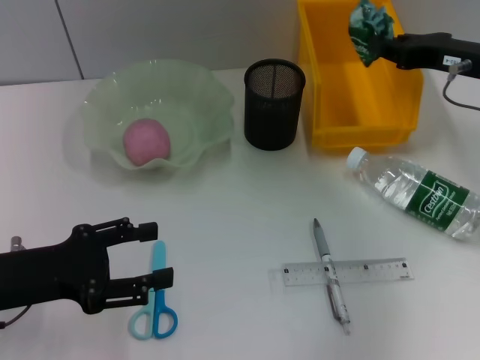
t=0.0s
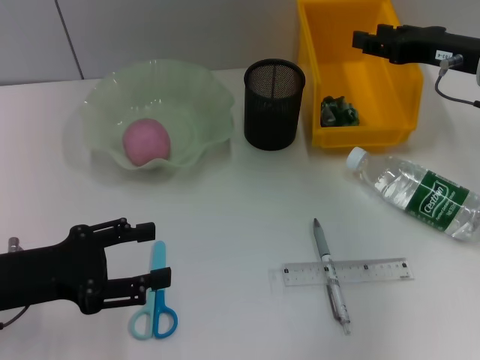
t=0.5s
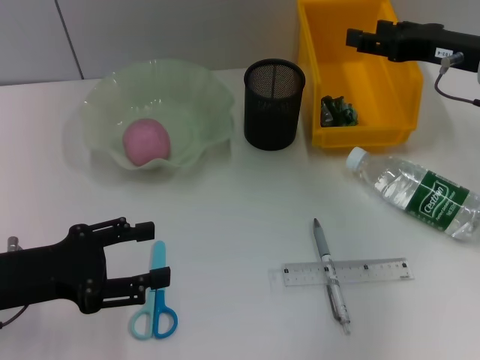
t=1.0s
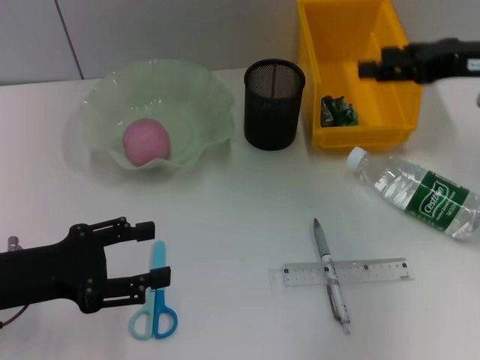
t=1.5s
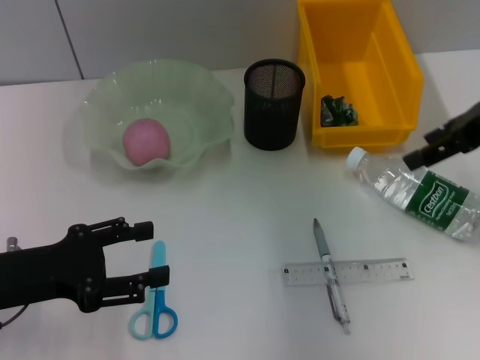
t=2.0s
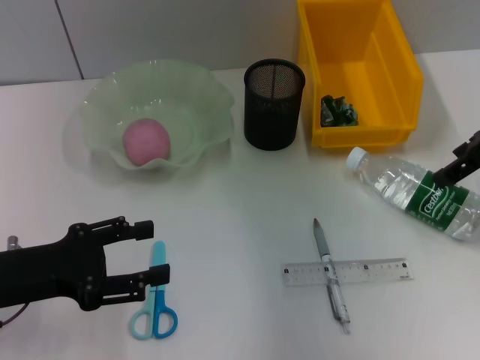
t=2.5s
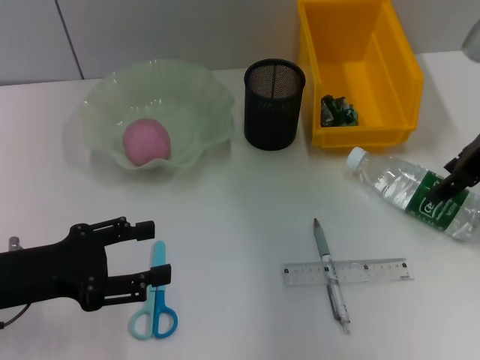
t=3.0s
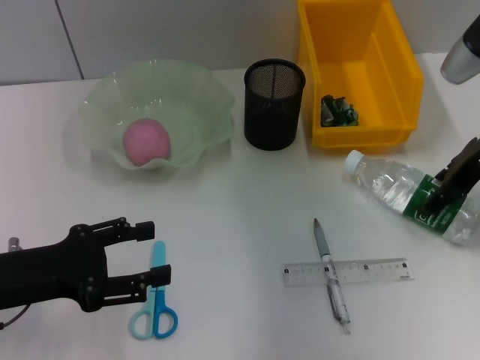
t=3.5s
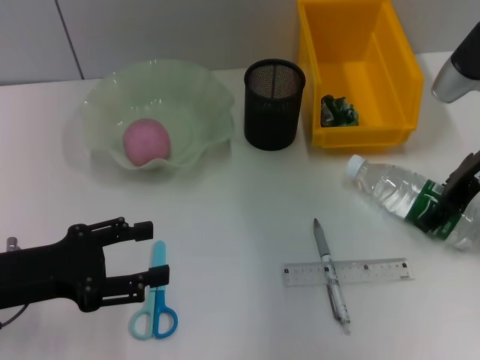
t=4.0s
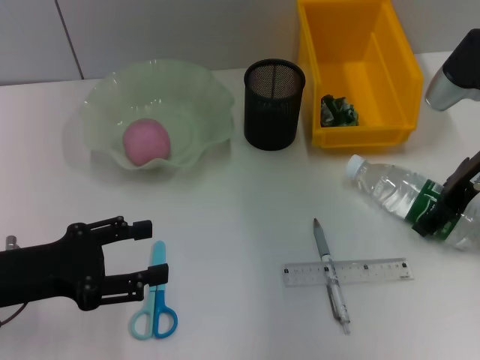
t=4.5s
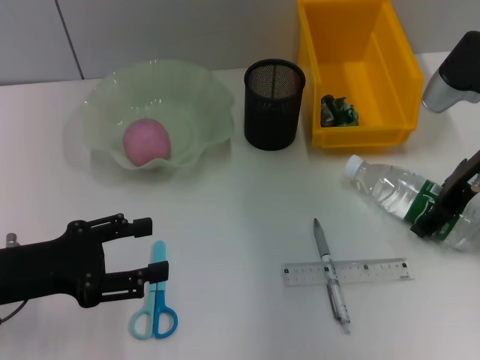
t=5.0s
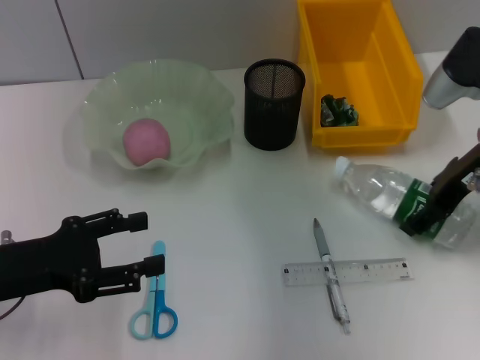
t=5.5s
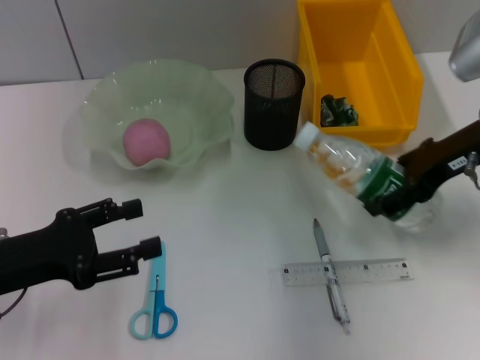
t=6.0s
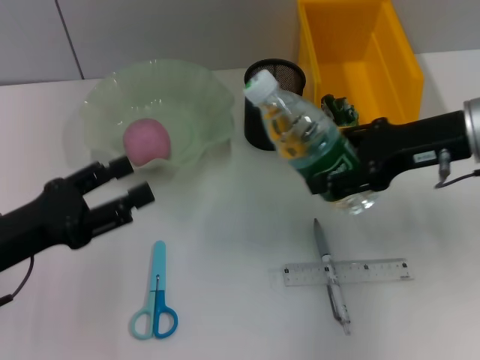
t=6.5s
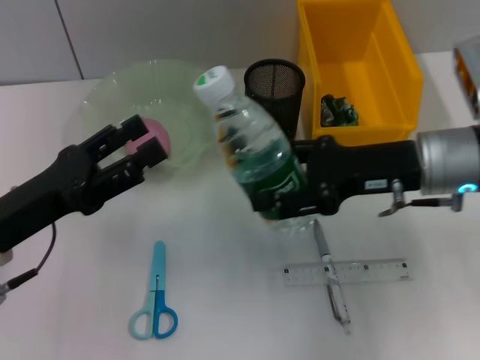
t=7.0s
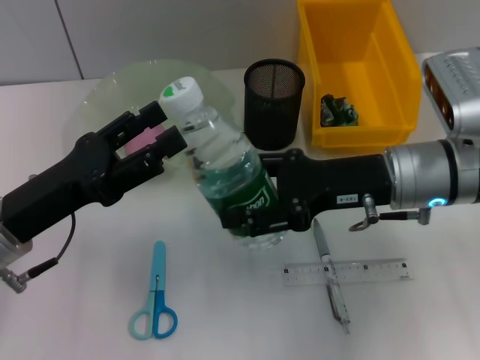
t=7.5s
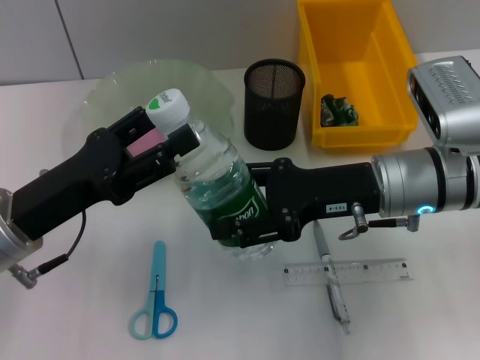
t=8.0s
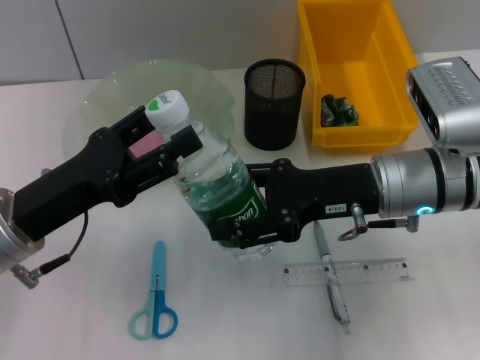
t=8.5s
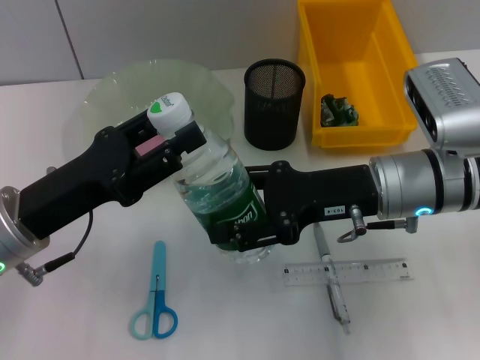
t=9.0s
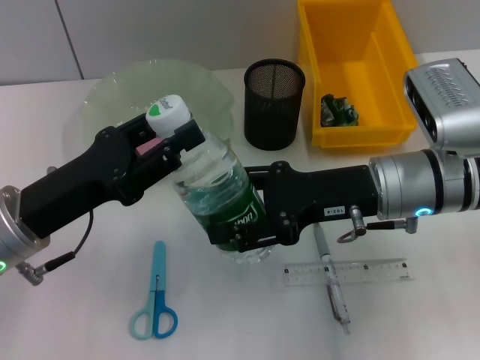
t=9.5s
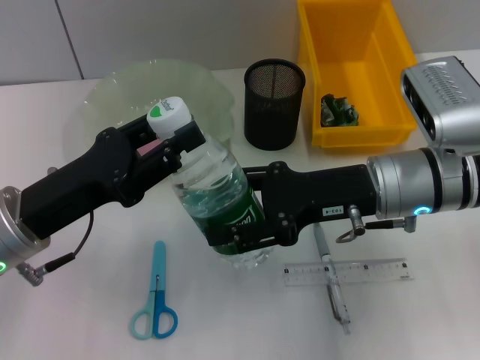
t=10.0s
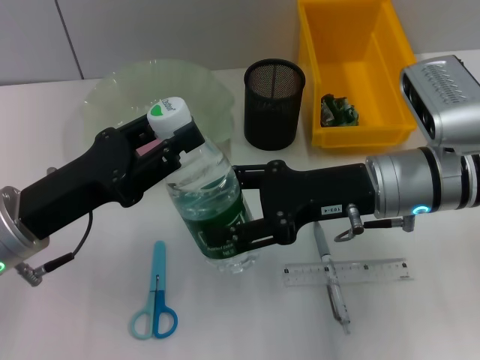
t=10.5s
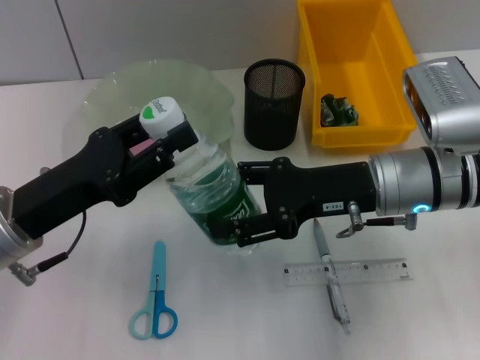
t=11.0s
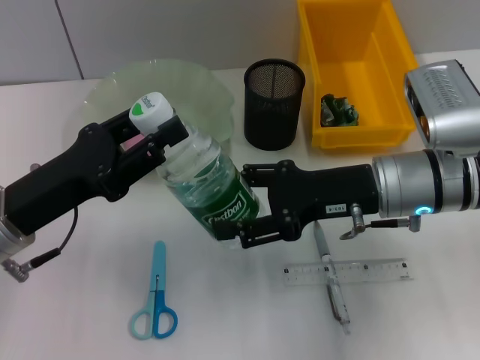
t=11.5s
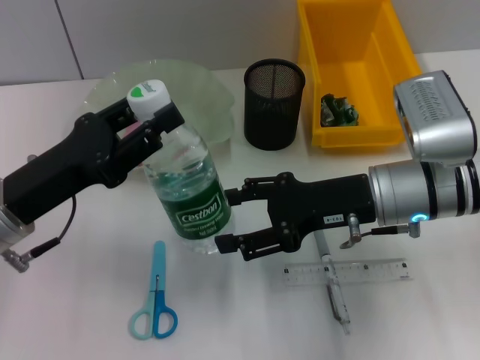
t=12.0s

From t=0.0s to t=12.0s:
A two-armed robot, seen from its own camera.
Step, from t=1.0s to t=5.0s: Grab the water bottle with the right hand.
From t=0.0s to t=2.0s: The right gripper moves upward, roughly 5 cm, and opens up.
From t=2.0s to t=4.0s: The right gripper shifts about 5 cm downward.
From t=6.0s to t=8.0s: The right gripper shifts about 10 cm to the left and downward. Meanwhile the left gripper shifts about 5 cm to the right.
From t=8.0s to t=10.0s: The left gripper closes.

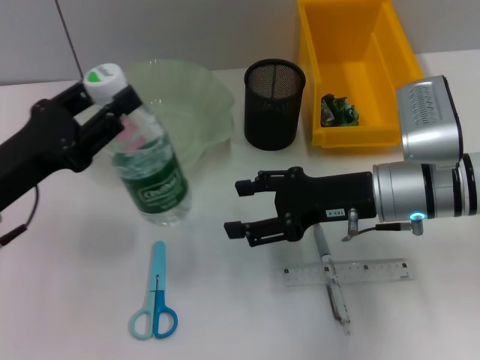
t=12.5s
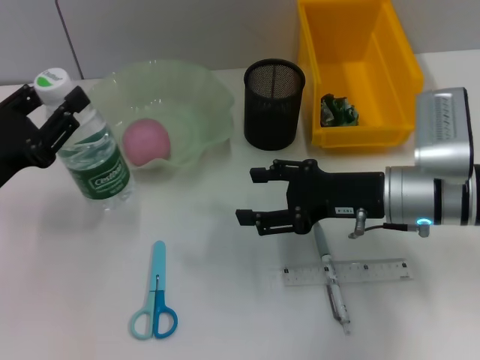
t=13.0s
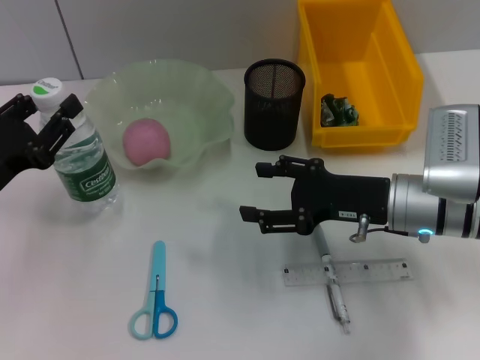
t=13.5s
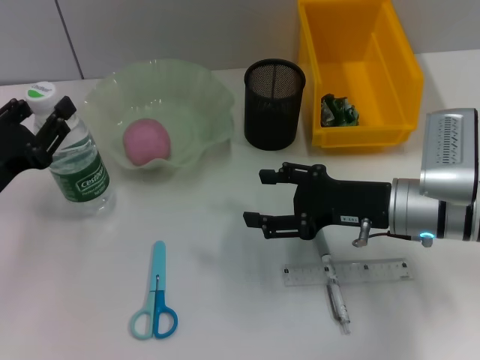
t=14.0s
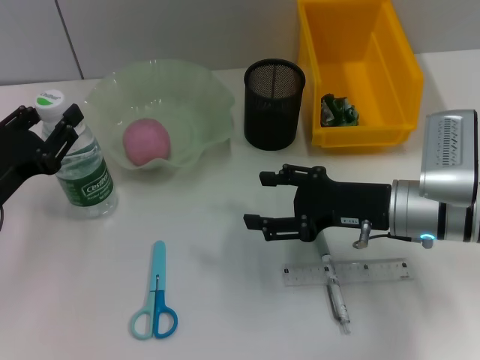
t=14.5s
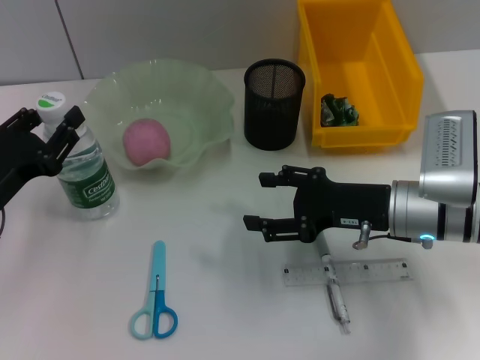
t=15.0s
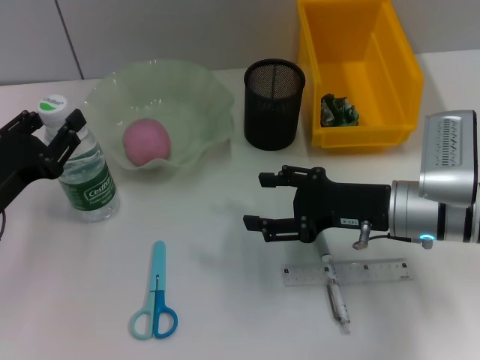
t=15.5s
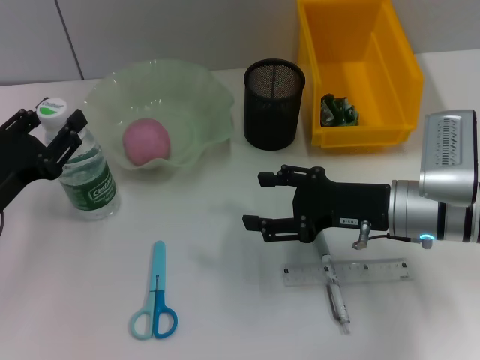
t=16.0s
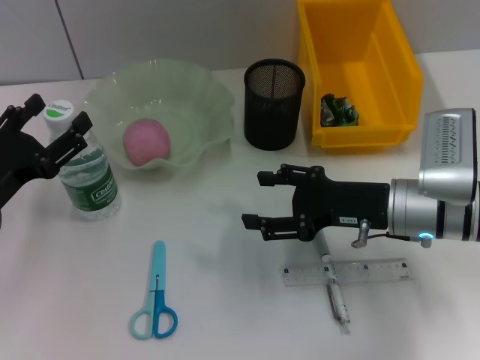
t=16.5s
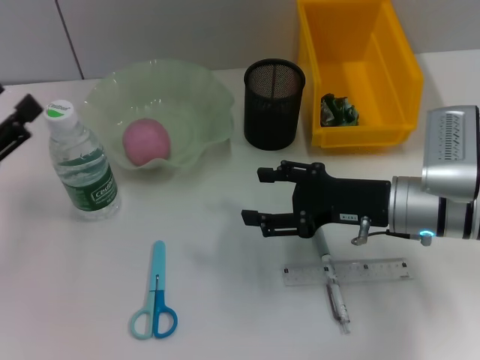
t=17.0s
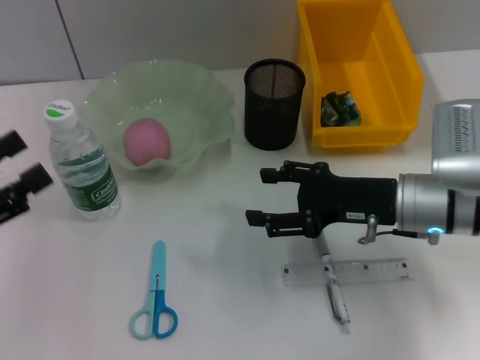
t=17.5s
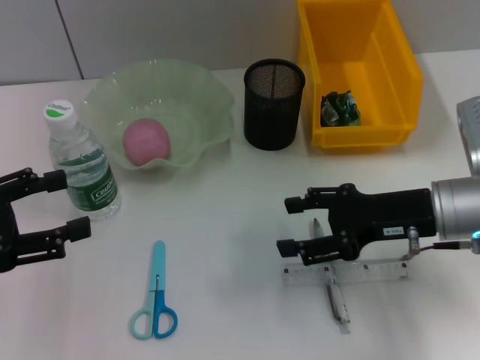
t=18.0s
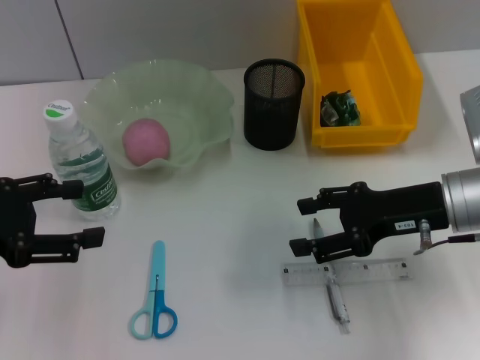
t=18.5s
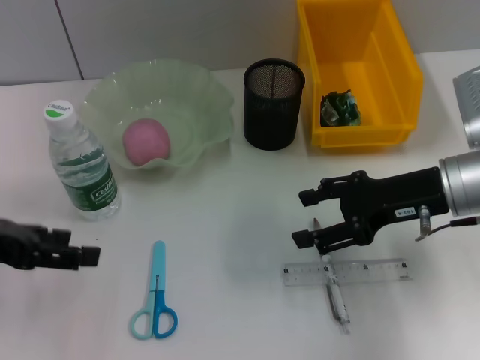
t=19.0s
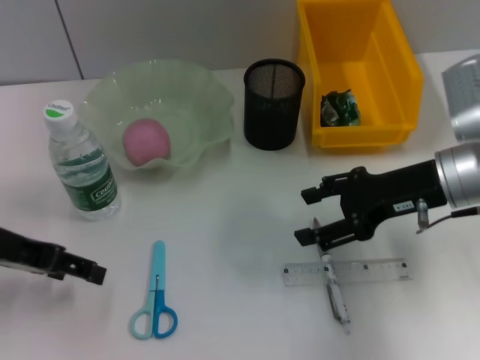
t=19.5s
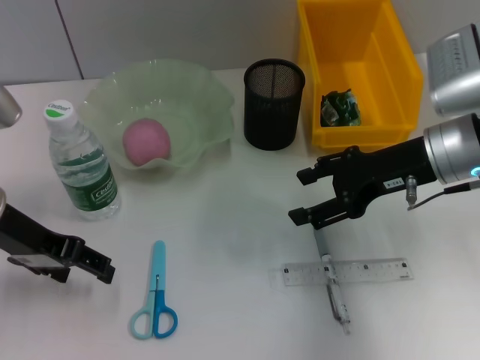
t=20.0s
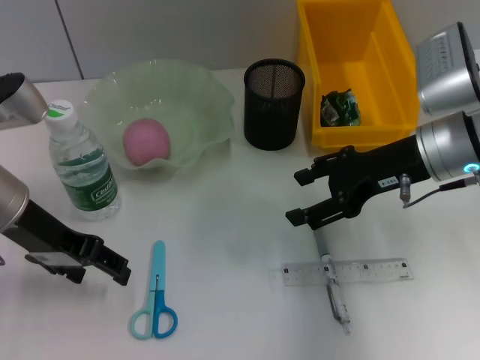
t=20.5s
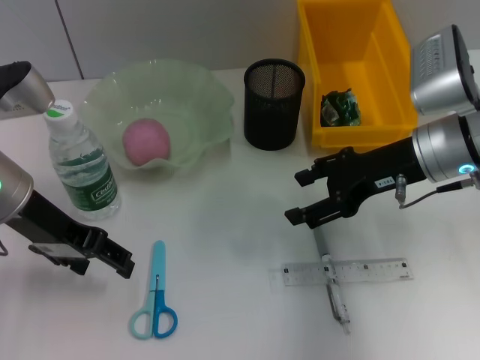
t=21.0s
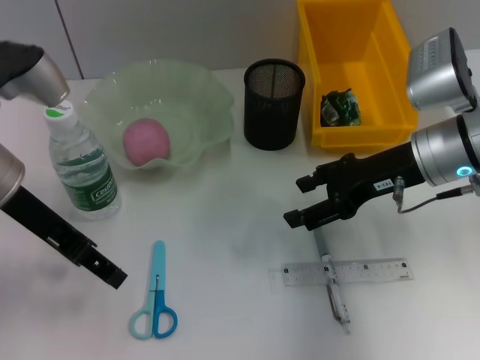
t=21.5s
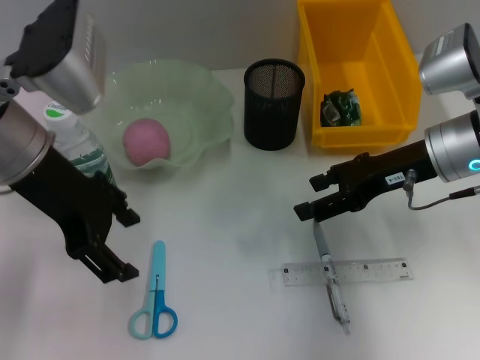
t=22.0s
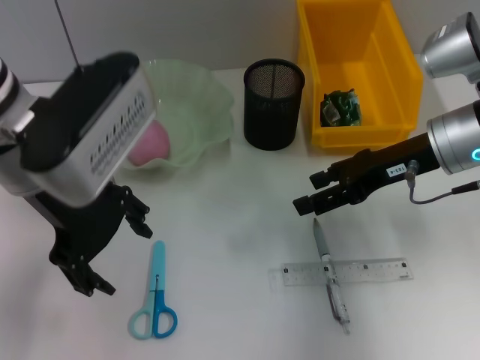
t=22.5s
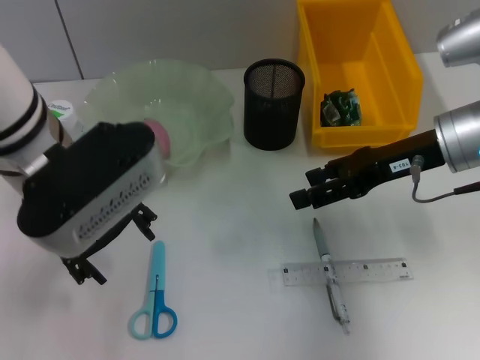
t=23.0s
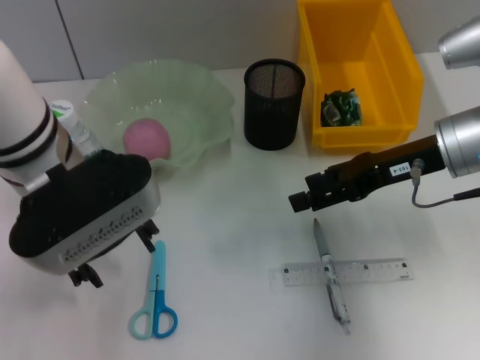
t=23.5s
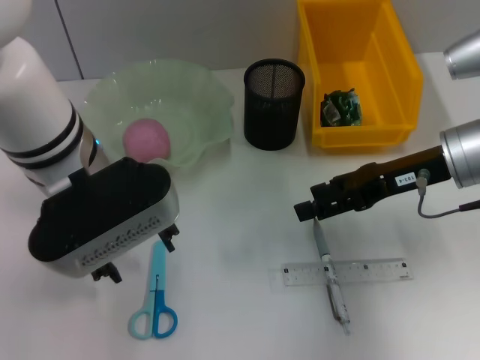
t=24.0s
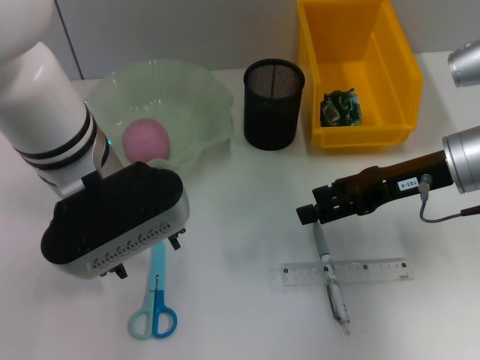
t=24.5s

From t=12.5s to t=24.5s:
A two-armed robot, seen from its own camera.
Step, from t=12.5s to t=16.5s: Place the water bottle on the table with the left hand.
From t=12.5s to t=14.5s: The left gripper moves about 5 cm.
From t=14.5s to t=16.5s: The left gripper opens.
From t=16.5s to t=18.5s: The right gripper shifts by approximately 5 cm; the left gripper goes about 10 cm upward.
From t=18.5s to t=20.5s: The left gripper is displaced to the right and forward by roughly 10 cm. The right gripper moves some 5 cm.
From t=20.5s to t=22.5s: The left gripper is displaced upward and to the right by approximately 10 cm.
From t=22.5s to t=24.5s: The left gripper ends up some 5 cm from where it was.

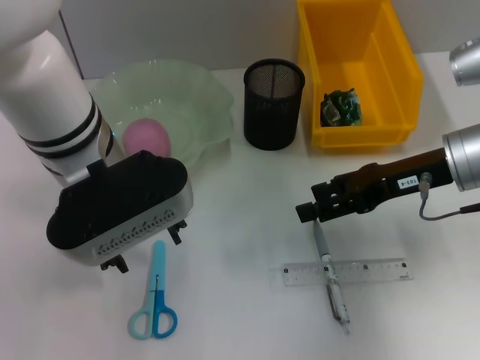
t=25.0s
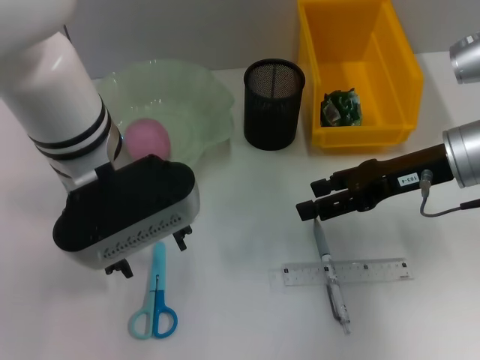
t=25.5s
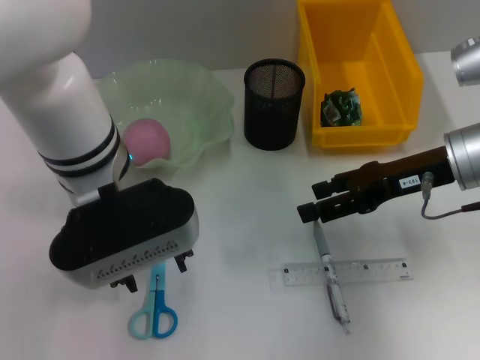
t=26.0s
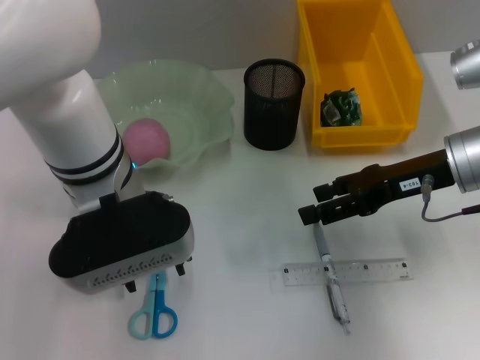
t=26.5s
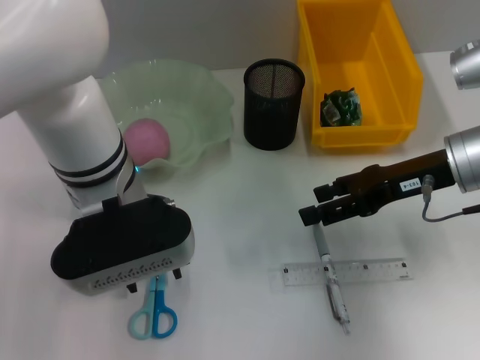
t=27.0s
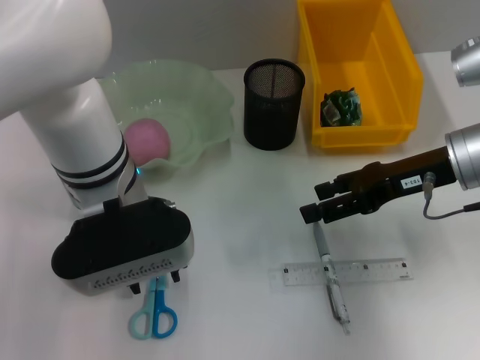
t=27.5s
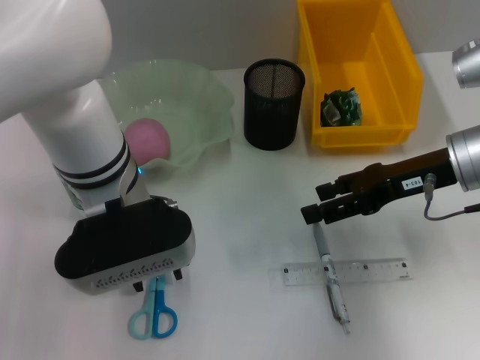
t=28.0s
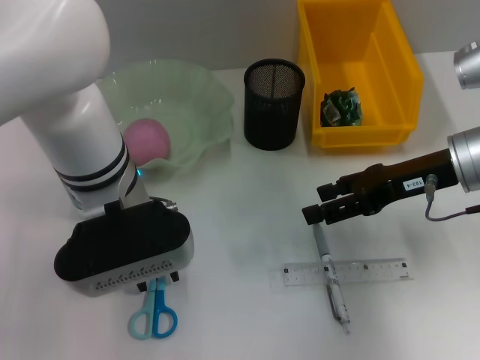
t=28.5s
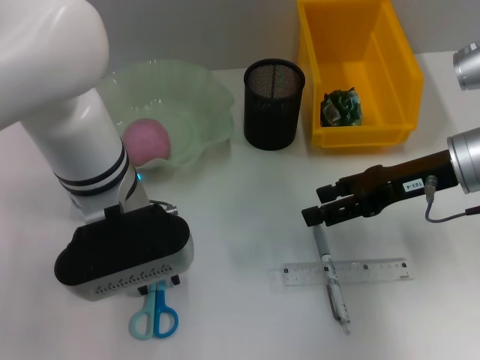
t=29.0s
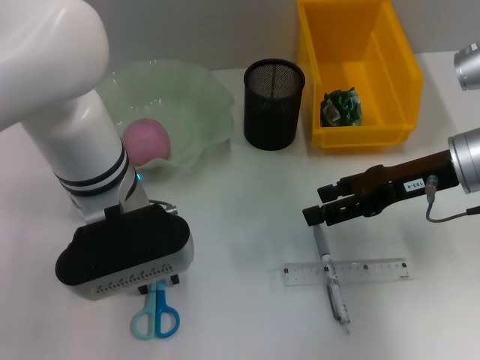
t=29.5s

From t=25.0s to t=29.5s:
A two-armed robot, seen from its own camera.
From t=25.0s to t=27.0s: The grippers make only small movements.
From t=27.0s to t=29.5s: The left gripper closes its fingers.
